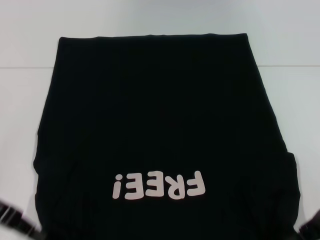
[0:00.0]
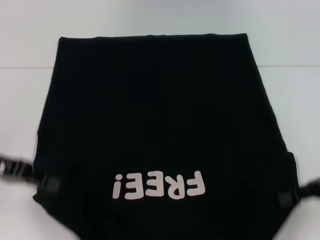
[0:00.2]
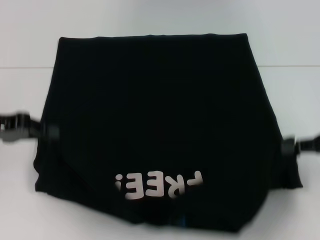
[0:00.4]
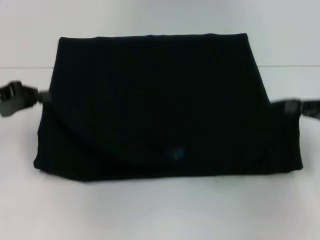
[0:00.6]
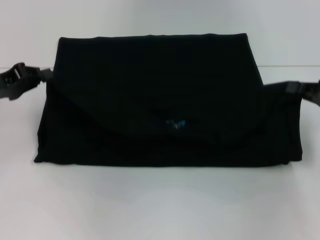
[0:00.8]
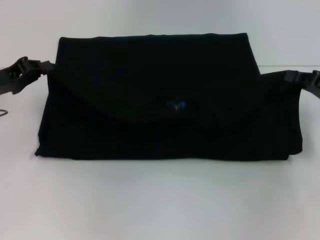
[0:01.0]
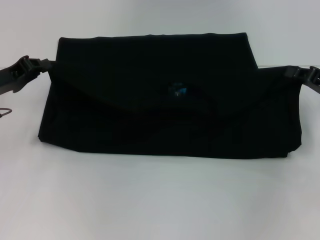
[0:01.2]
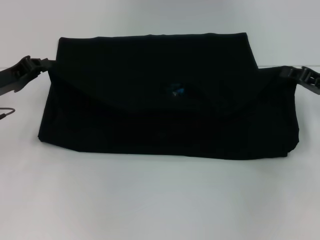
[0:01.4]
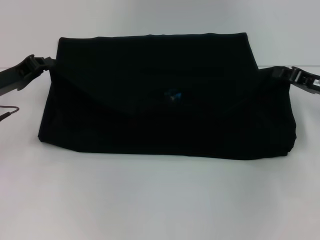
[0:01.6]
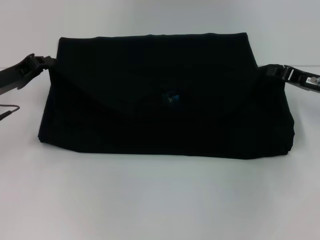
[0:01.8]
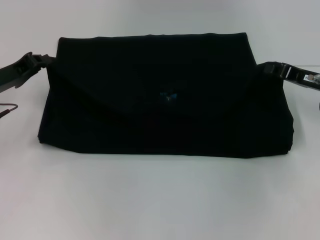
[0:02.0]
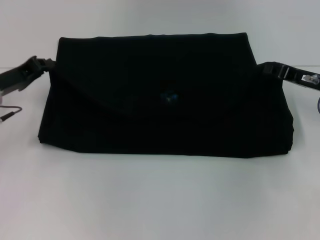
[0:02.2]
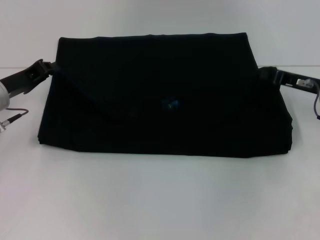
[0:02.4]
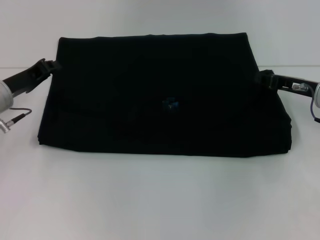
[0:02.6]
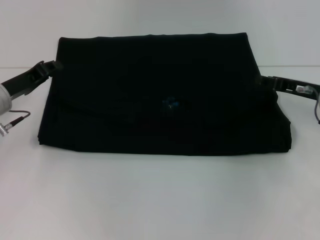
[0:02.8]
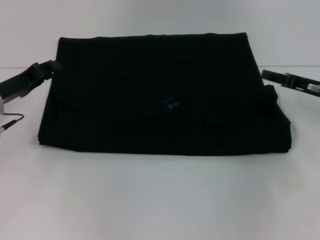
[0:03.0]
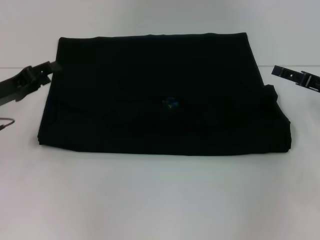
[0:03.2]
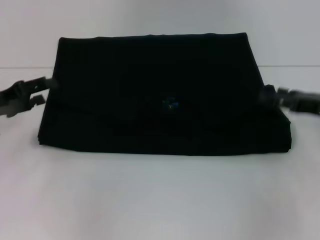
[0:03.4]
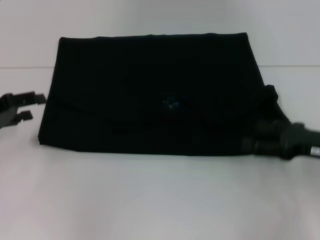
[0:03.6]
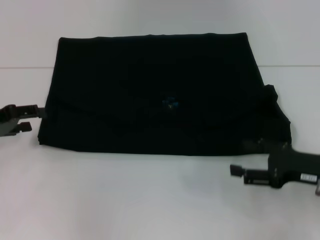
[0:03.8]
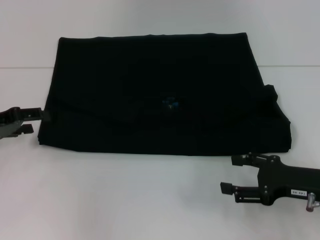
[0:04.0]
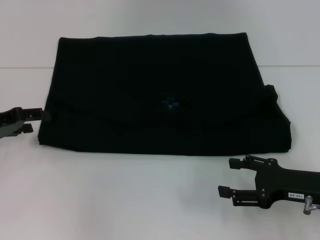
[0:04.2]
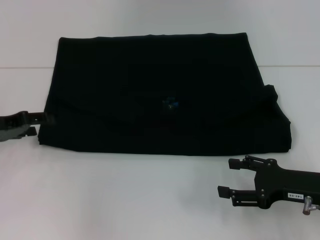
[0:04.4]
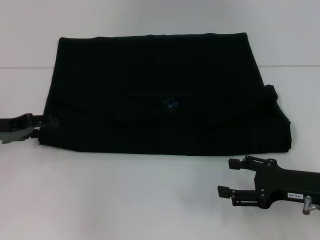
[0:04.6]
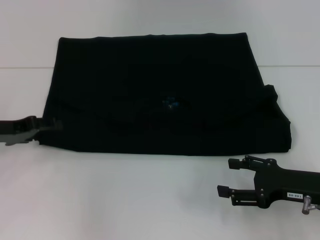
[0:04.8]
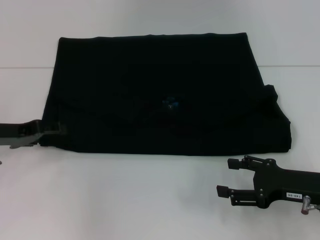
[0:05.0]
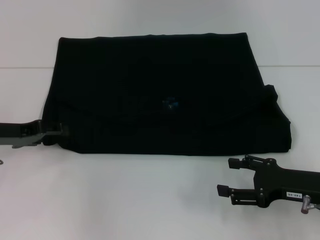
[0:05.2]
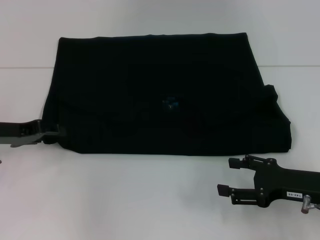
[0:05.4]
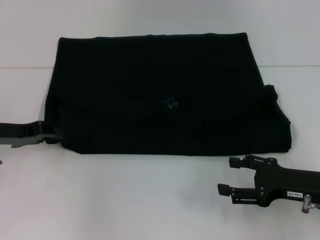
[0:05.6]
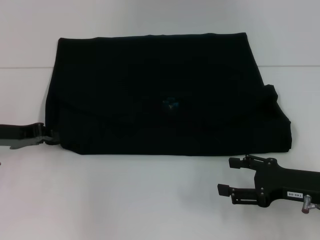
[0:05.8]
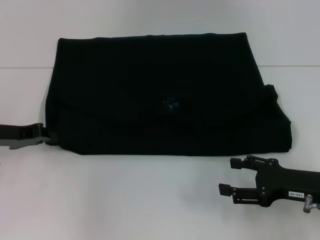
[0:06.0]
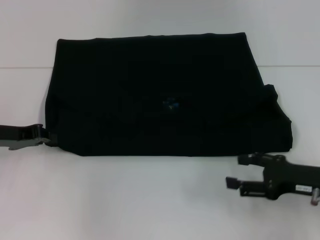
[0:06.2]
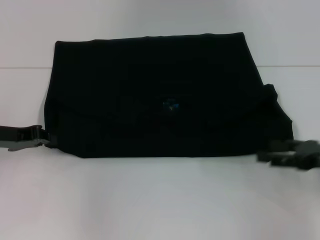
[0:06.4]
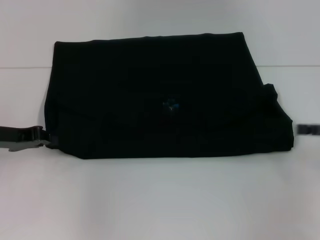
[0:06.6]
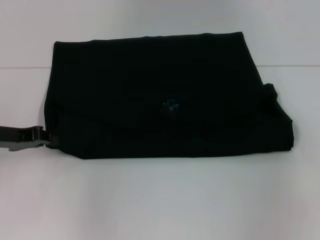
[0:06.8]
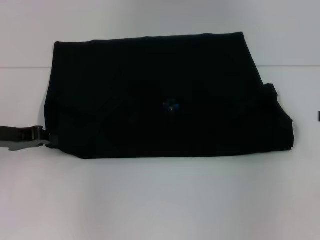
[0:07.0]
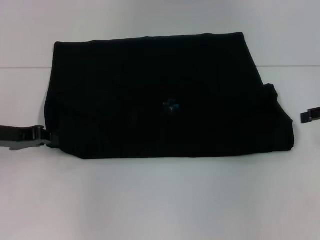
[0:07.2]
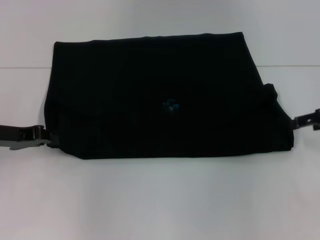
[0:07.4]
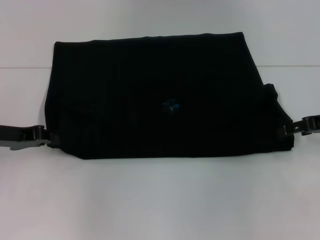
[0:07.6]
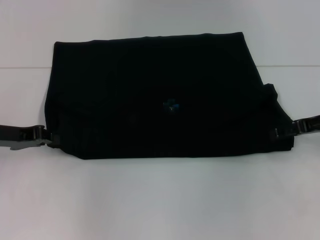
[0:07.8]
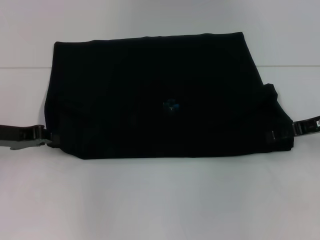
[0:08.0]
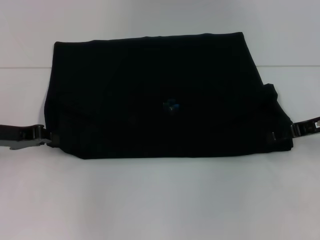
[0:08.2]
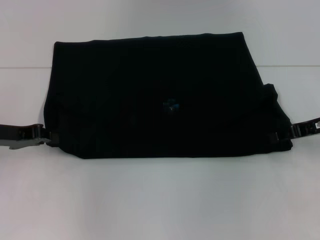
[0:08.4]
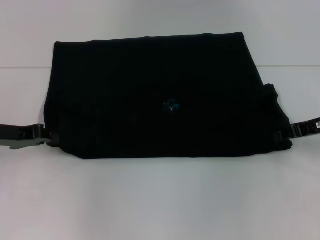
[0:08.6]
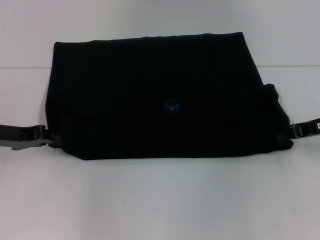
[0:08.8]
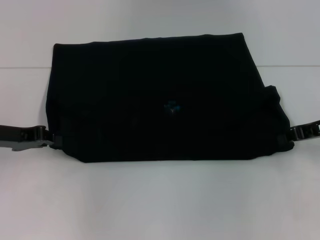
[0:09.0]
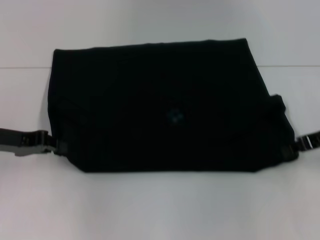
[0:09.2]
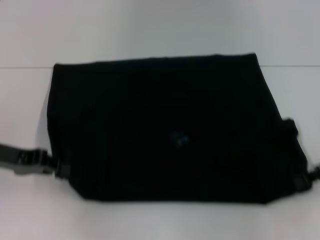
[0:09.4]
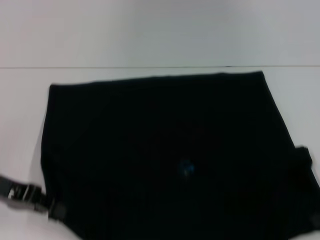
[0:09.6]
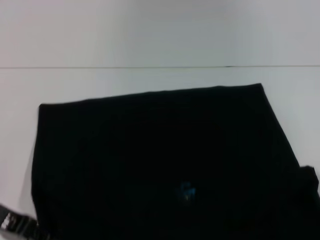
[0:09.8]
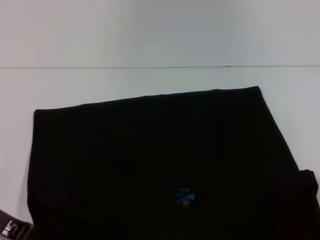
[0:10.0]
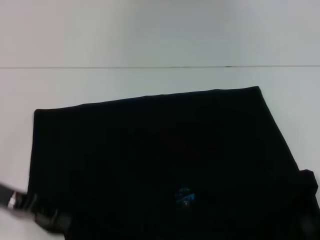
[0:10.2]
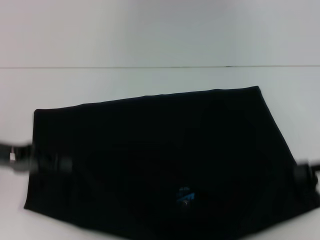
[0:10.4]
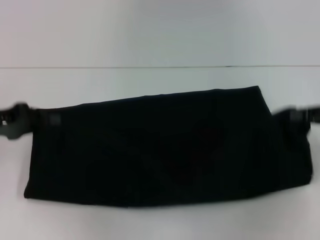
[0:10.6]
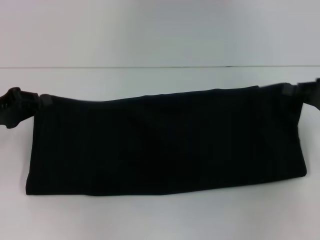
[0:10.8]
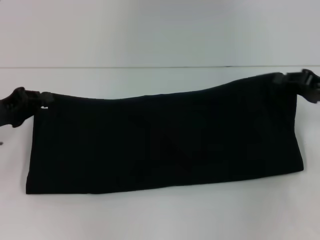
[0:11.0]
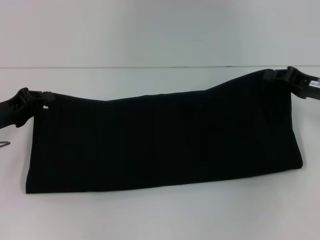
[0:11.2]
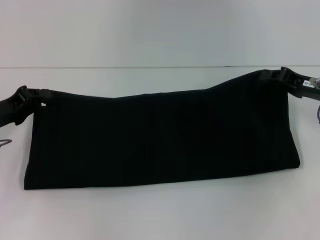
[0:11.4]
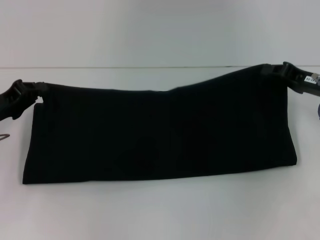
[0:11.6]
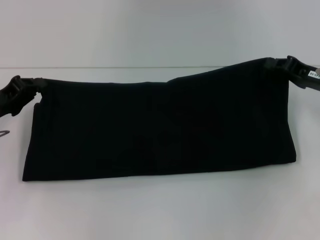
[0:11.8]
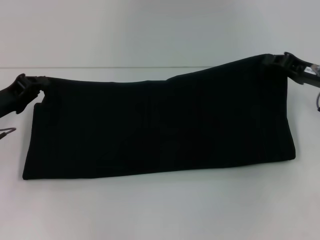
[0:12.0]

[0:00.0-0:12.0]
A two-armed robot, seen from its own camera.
Step, 0.0 to 3.0 s: Fold the clothes with your left hand.
Step, 0.0 to 3.0 s: Fold the clothes with your right hand.
Step, 3.2 to 9.8 s: Pull the clothes with your left hand.
Step, 3.2 to 9.8 s: Pull the clothes with your right hand.
0.0 to 1.6 s: Both grippers move forward, approximately 10 cm.
1.6 to 3.0 s: The right gripper opens its fingers.
3.0 to 4.4 s: The right gripper travels backward by some 10 cm, and opens, while the left gripper opens.
4.4 to 6.0 s: The left gripper closes up.
6.0 to 7.6 s: The right gripper shifts some 15 cm forward, upward and to the right.
7.6 to 9.0 s: The right gripper closes up.
9.0 to 10.4 s: The right gripper shifts approximately 5 cm backward.
10.4 to 12.0 s: The left gripper shifts approximately 5 cm downward; the right gripper shifts about 10 cm forward and to the left.

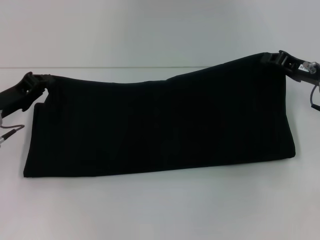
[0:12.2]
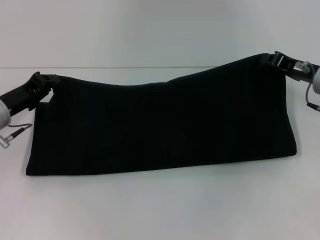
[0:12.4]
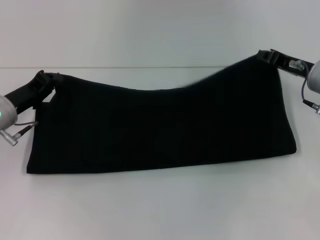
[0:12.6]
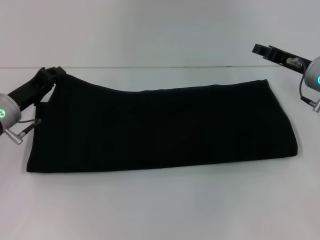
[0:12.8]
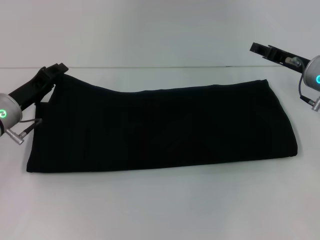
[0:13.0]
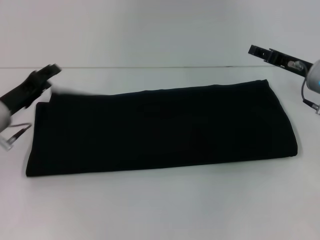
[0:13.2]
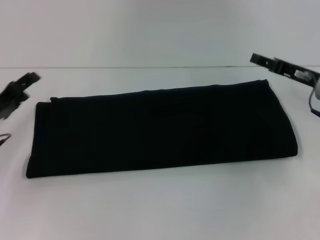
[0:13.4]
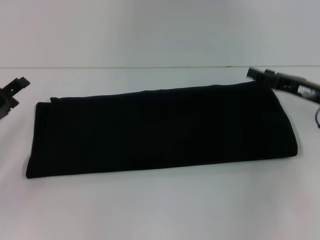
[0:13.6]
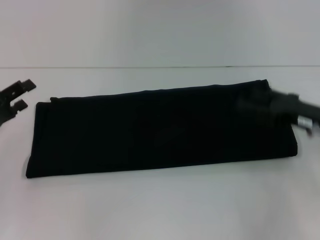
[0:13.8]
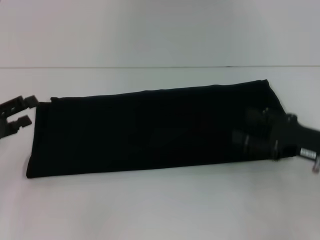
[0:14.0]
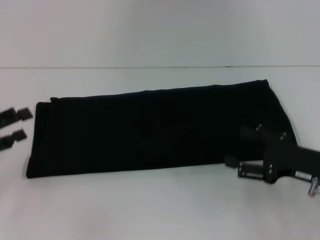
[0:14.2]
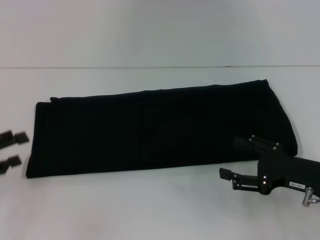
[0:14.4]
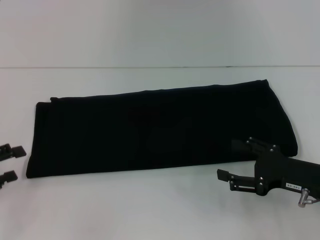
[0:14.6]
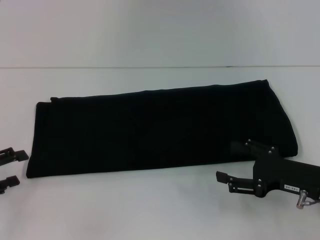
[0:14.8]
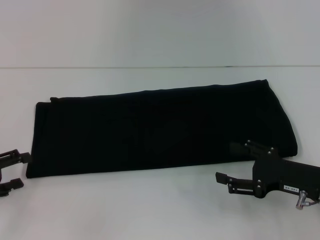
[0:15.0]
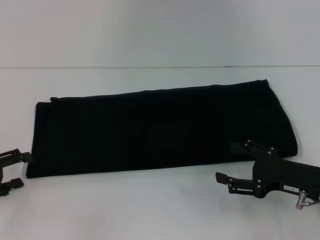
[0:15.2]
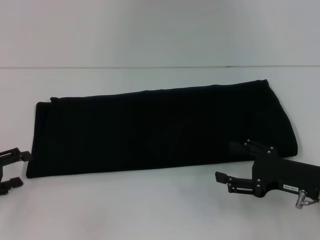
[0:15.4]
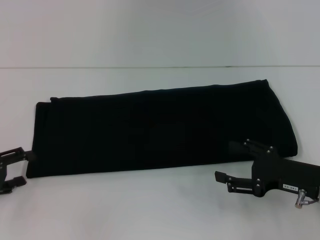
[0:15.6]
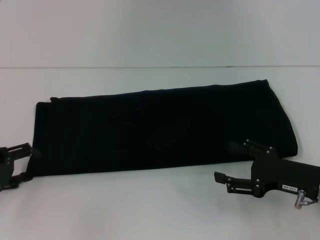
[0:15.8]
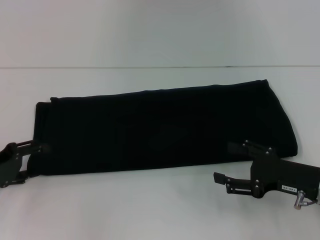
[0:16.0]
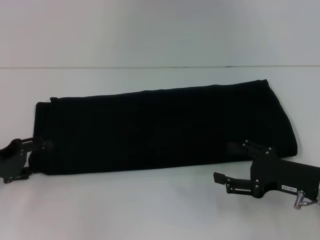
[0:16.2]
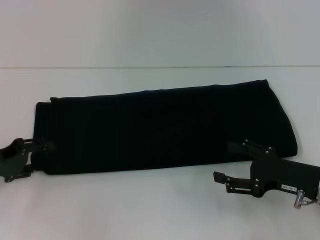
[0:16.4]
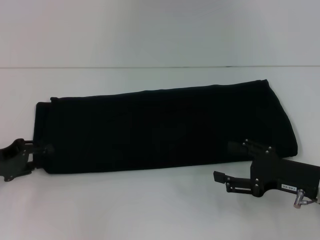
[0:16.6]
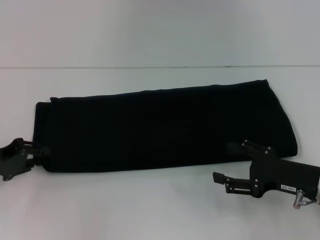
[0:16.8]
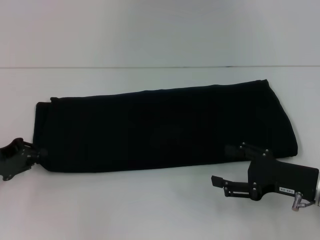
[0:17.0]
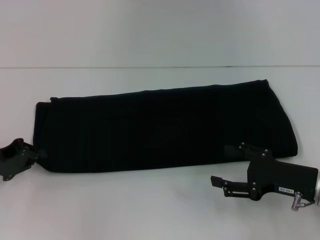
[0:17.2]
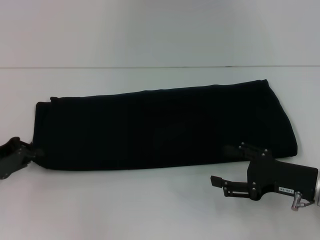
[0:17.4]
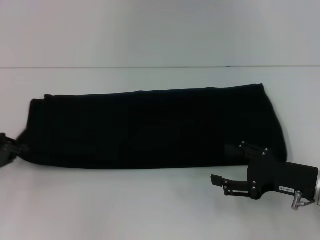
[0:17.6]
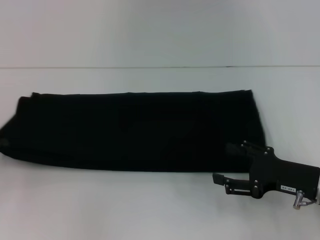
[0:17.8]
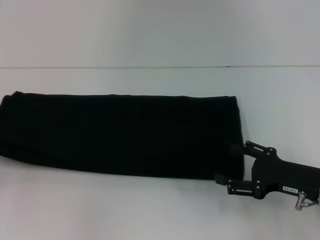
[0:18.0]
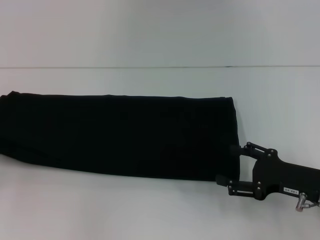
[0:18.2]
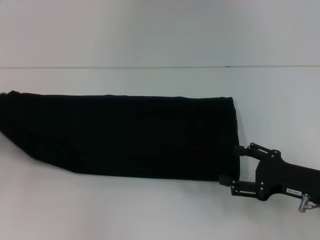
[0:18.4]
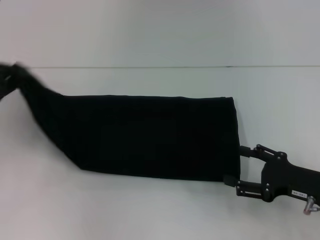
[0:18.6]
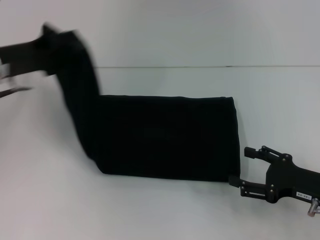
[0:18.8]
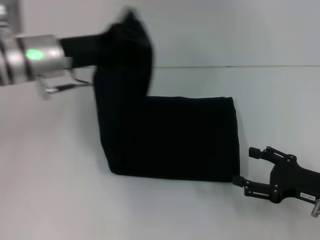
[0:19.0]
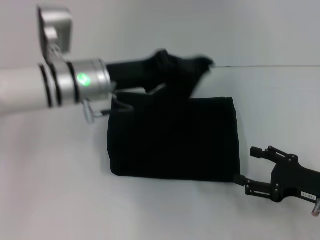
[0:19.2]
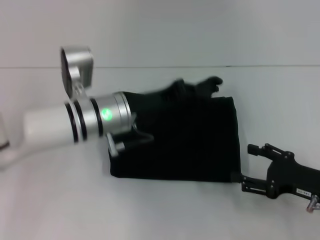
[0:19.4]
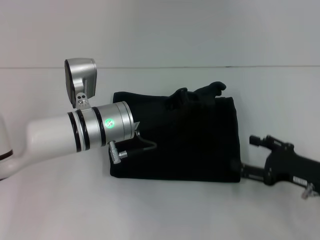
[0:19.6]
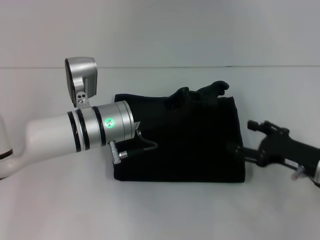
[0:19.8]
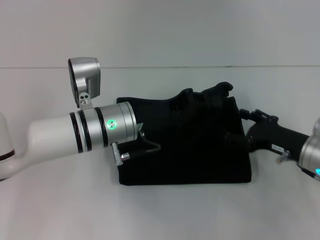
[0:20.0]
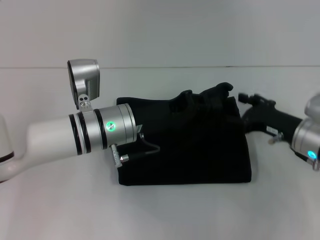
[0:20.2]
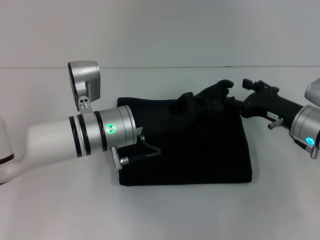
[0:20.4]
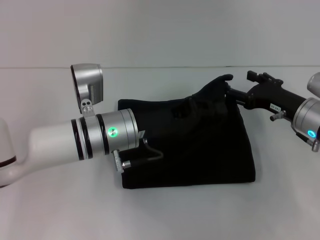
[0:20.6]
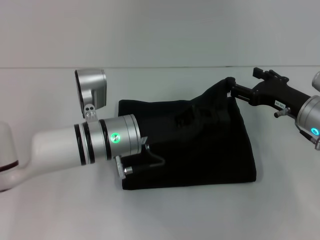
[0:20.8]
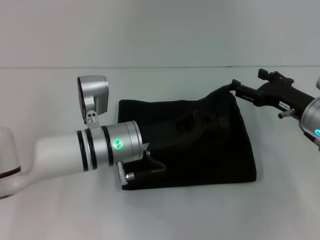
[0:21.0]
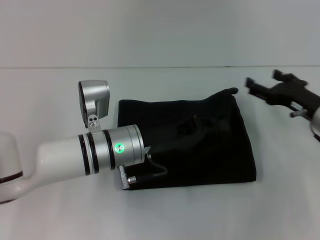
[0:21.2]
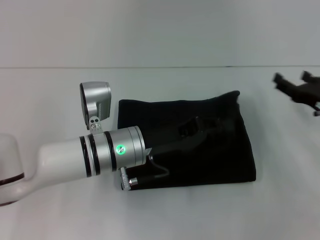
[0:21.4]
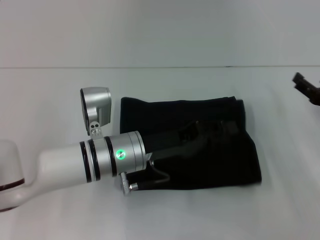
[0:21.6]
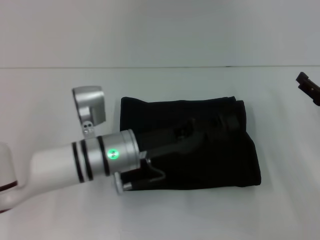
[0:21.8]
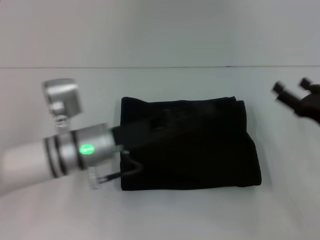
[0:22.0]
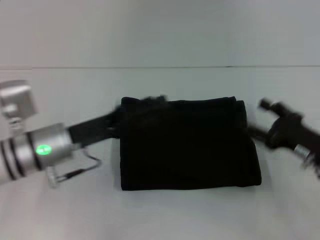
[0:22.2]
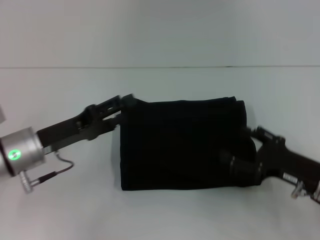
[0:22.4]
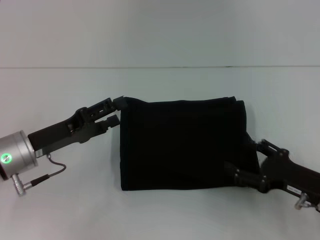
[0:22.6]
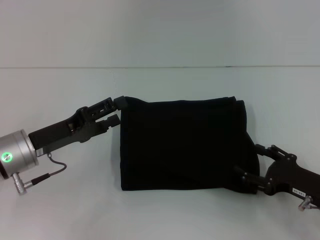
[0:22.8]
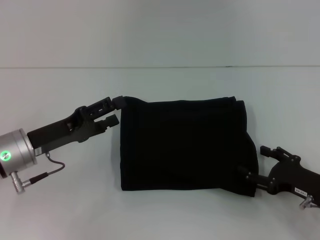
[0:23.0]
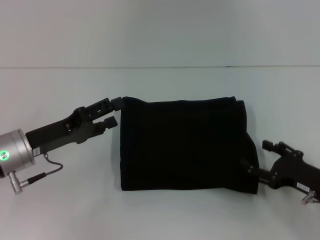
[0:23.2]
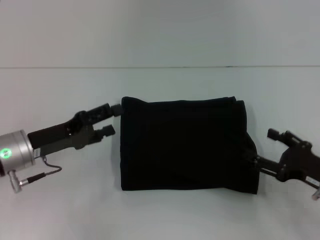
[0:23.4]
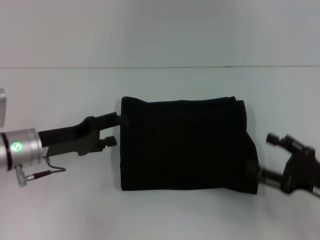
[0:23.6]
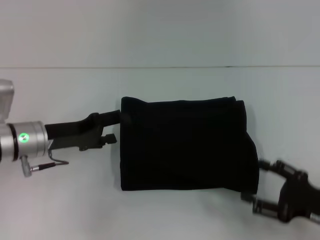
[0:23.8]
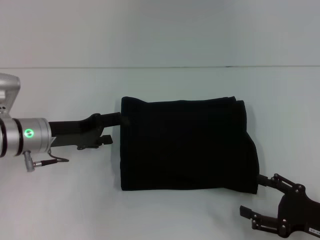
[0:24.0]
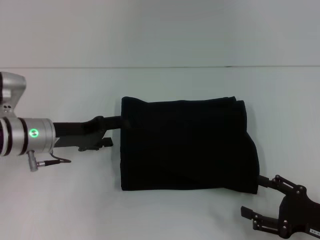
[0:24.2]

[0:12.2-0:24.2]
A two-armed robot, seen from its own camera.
Step, 12.2 to 21.8 s: Fold the clothes with your left hand.
12.2 to 13.8 s: The grippers both shift backward by some 5 cm. The right gripper opens. The left gripper opens up.
13.8 to 15.2 s: The grippers both shift backward by approximately 5 cm.
15.2 to 16.6 s: The left gripper moves approximately 5 cm.
16.6 to 18.2 s: The left gripper shifts some 10 cm to the left, and closes.
18.2 to 19.8 s: The left gripper moves to the right, approximately 30 cm.
19.8 to 21.2 s: The right gripper heads forward, covering roughly 5 cm.
21.2 to 22.6 s: The right gripper goes approximately 10 cm backward. Meanwhile the left gripper heads to the left, covering roughly 15 cm, and opens its fingers.
22.6 to 24.2 s: The left gripper is displaced forward by about 5 cm. Meanwhile the right gripper is displaced backward by approximately 5 cm.
